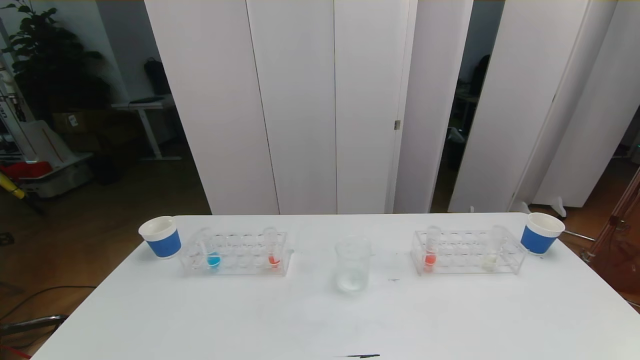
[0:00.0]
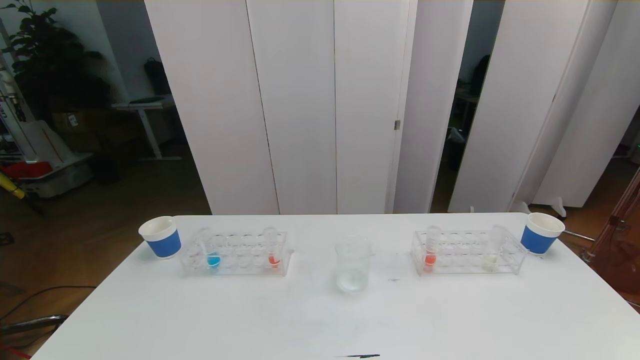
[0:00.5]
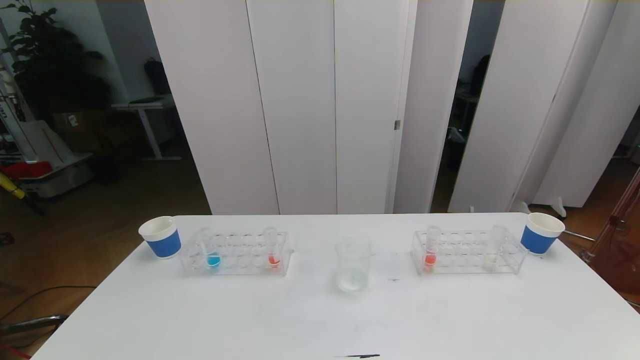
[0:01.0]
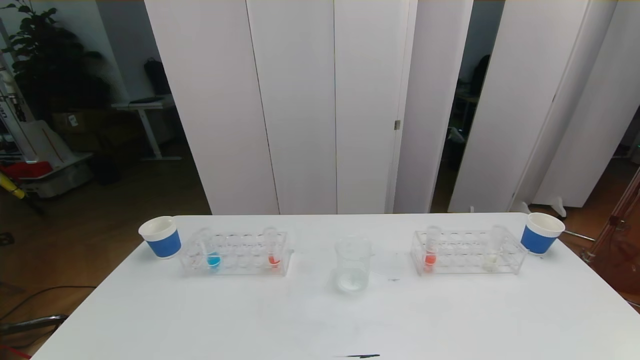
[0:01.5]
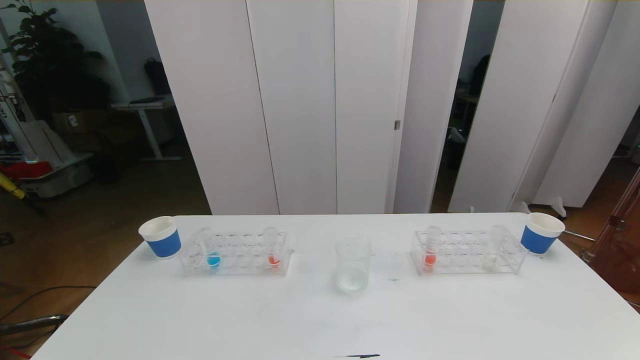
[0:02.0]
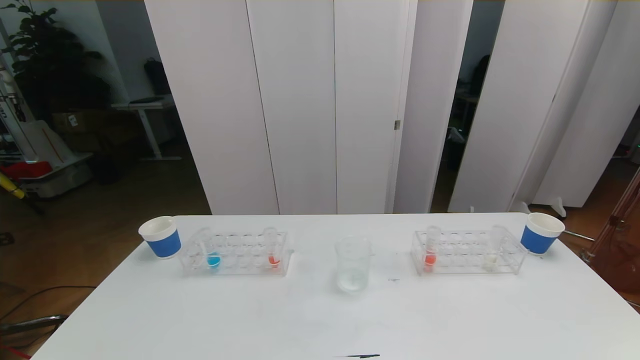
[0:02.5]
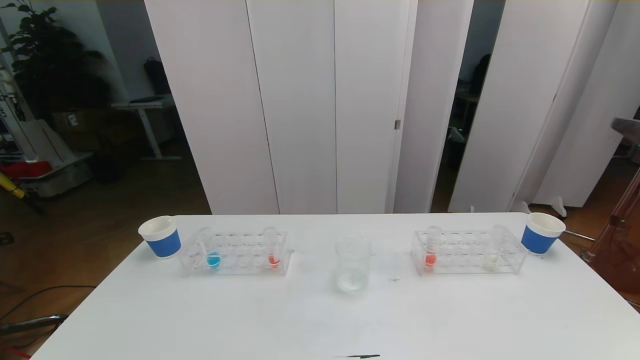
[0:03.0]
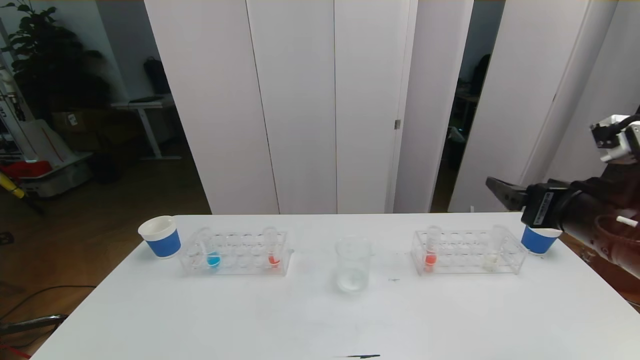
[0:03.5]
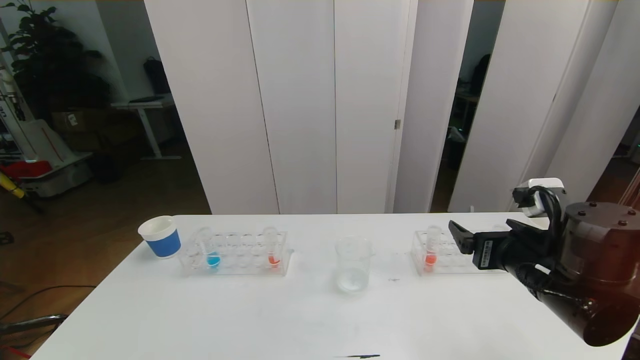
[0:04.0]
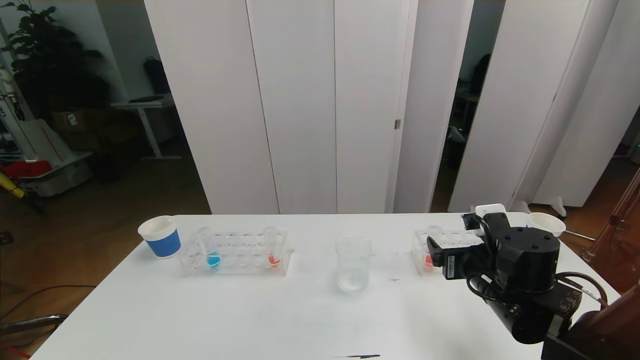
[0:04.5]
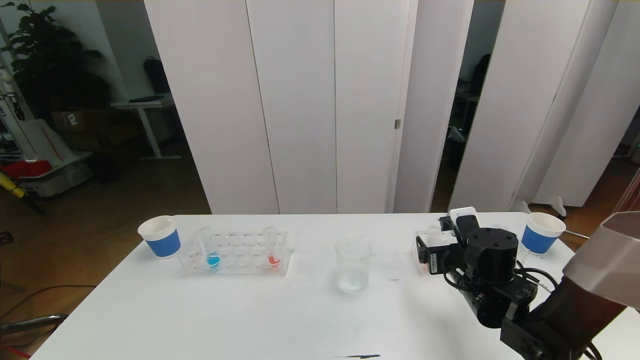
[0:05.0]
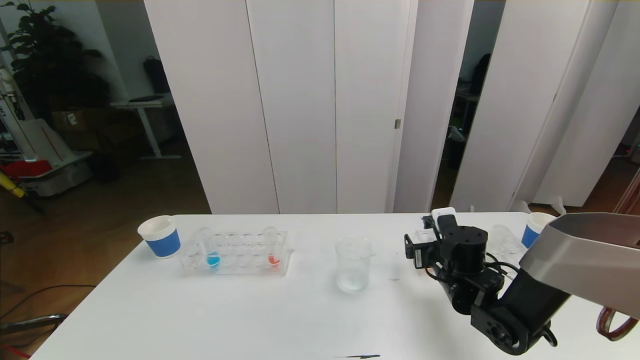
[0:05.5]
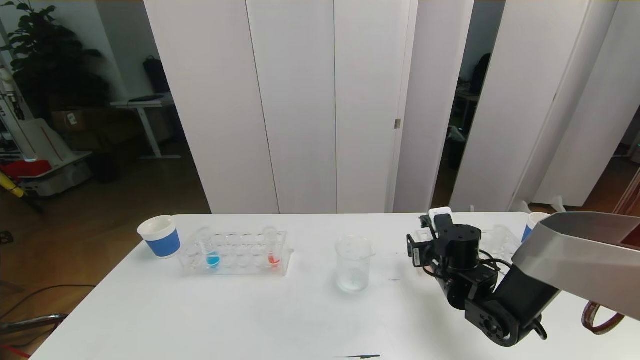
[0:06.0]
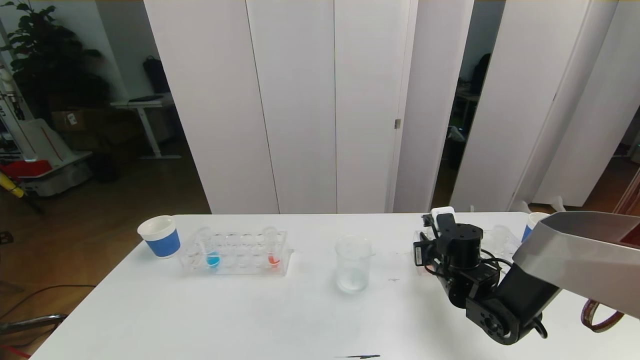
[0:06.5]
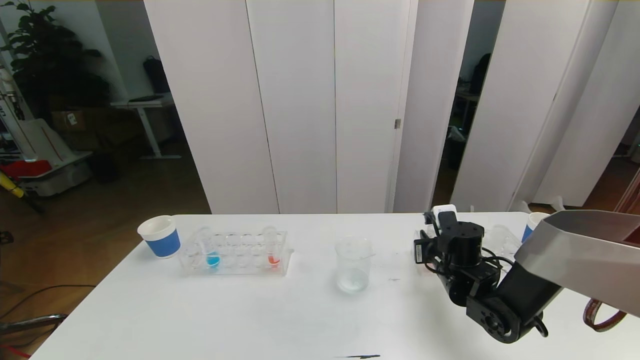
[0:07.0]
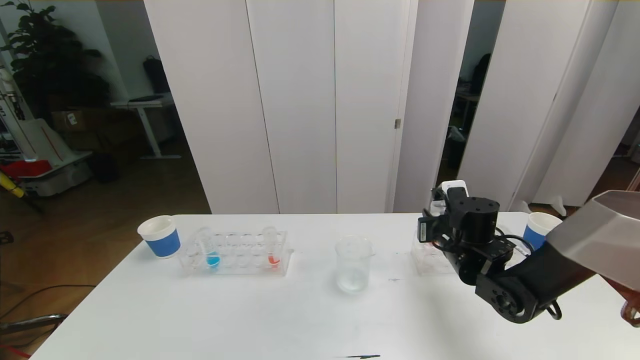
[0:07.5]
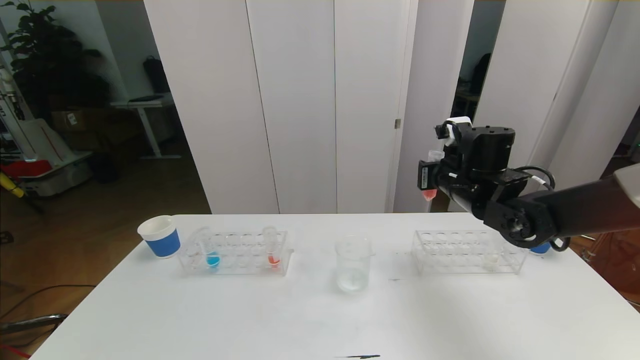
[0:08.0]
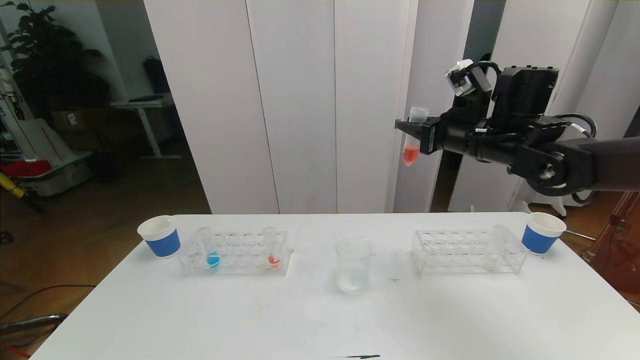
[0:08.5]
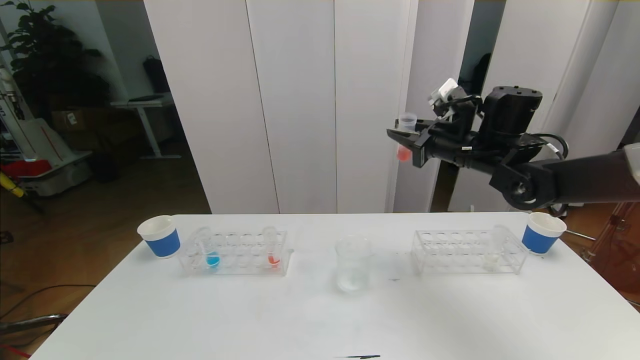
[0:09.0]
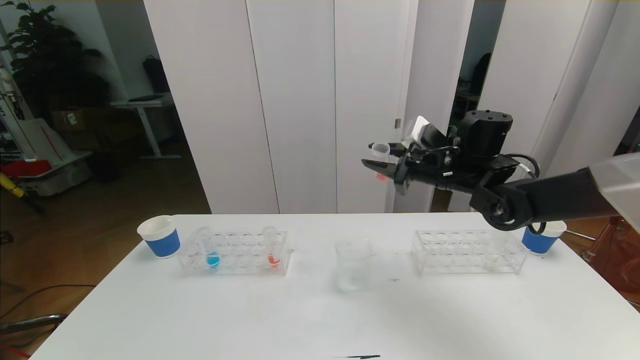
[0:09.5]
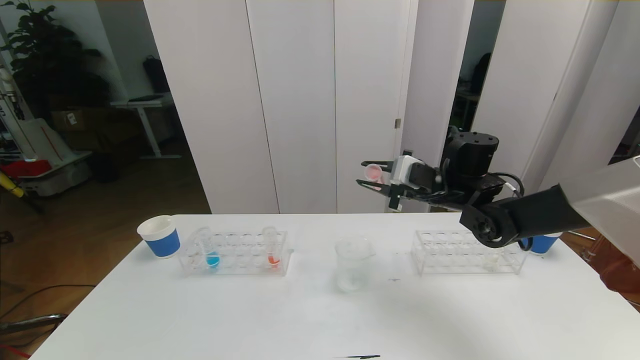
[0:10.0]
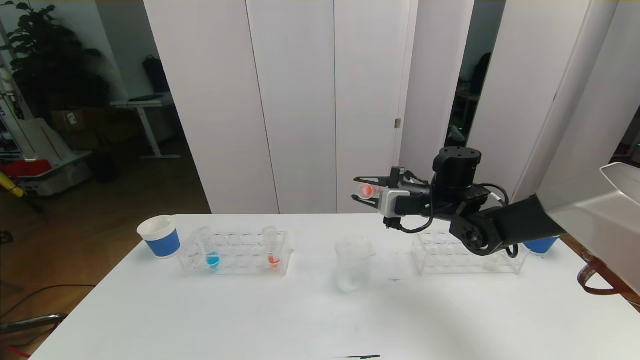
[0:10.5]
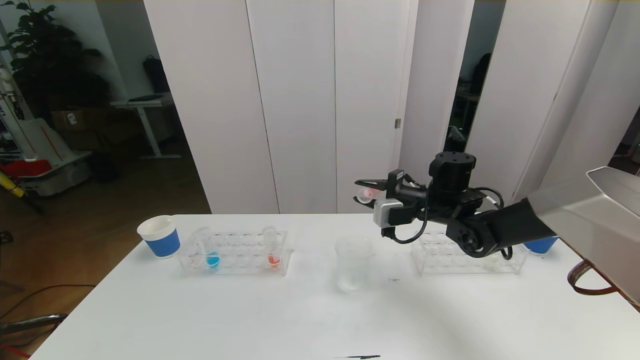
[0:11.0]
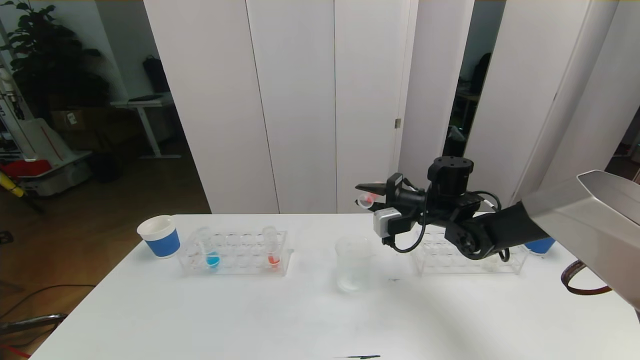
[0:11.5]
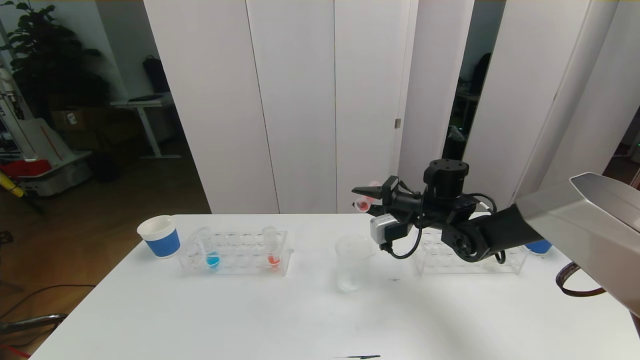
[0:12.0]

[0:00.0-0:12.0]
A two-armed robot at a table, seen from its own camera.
Task of the whole recording: pick up the test tube with red pigment the test tube with blue pigment and the test tube with white pigment by grippers and pour them into the beaker.
0:02.0 to 0:04.0: The right gripper goes about 30 cm forward and to the left.
0:04.0 to 0:06.0: The right gripper goes some 15 cm downward and forward, and closes up.
0:06.0 to 0:08.0: The right gripper is displaced upward by about 15 cm, and closes.
0:08.0 to 0:10.0: The right gripper goes upward and returns, some 5 cm each way.
0:10.0 to 0:12.0: The right gripper shifts about 5 cm downward.

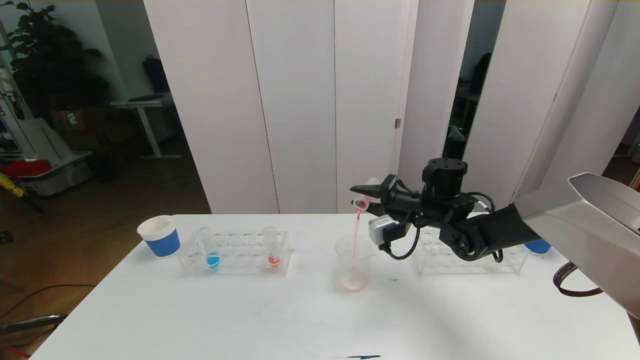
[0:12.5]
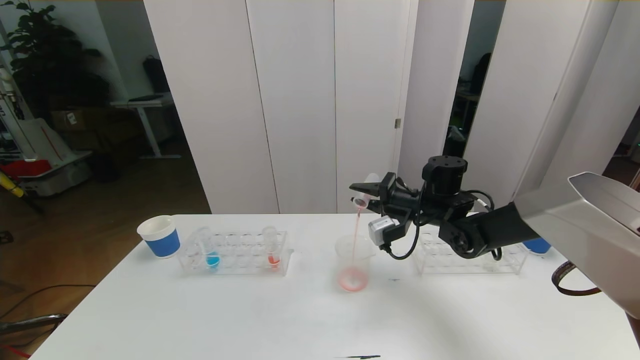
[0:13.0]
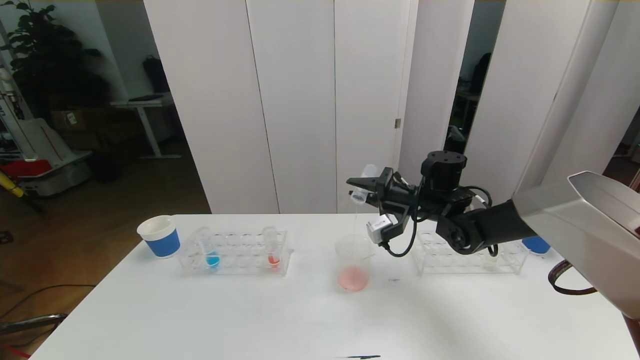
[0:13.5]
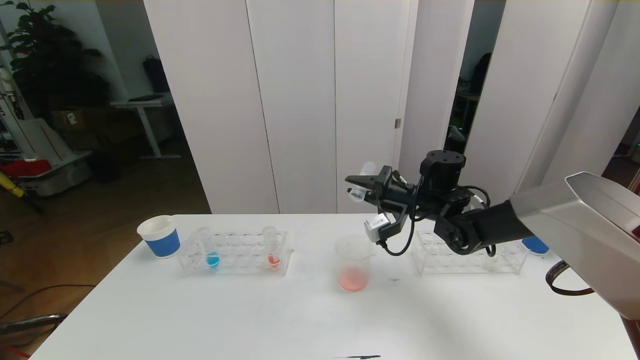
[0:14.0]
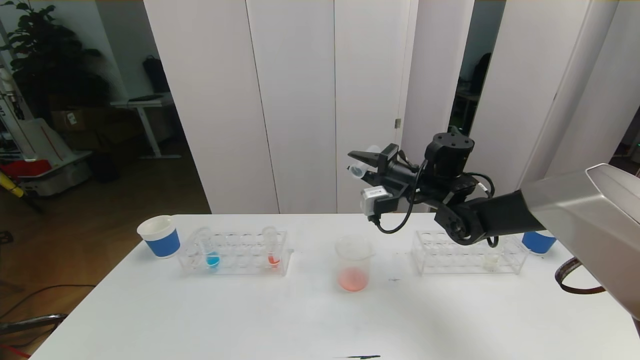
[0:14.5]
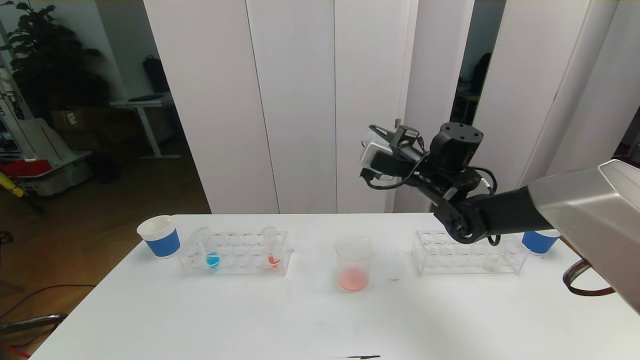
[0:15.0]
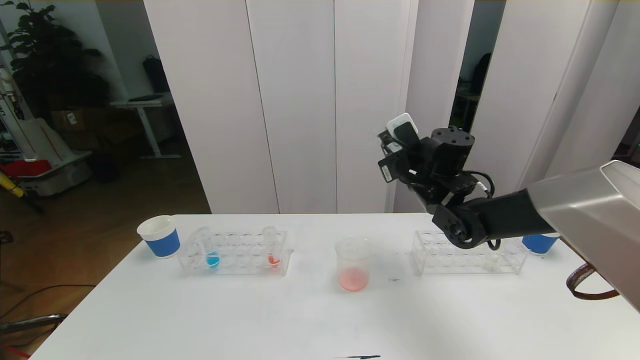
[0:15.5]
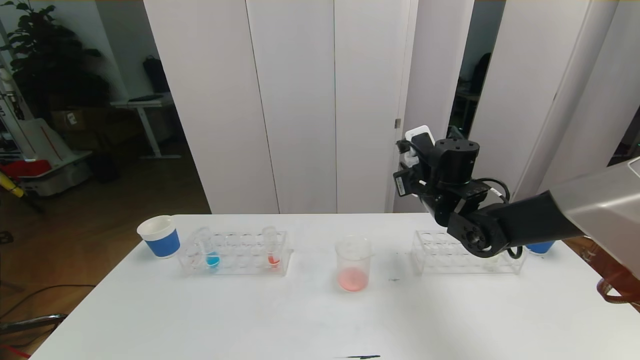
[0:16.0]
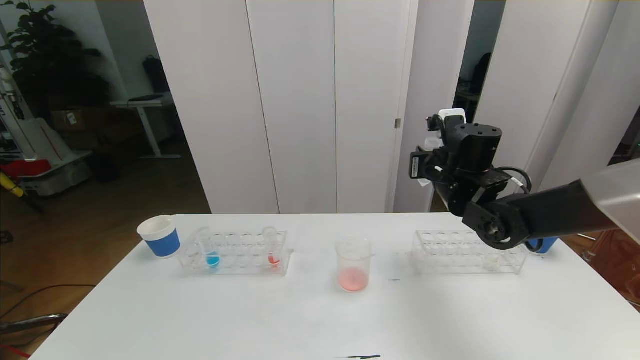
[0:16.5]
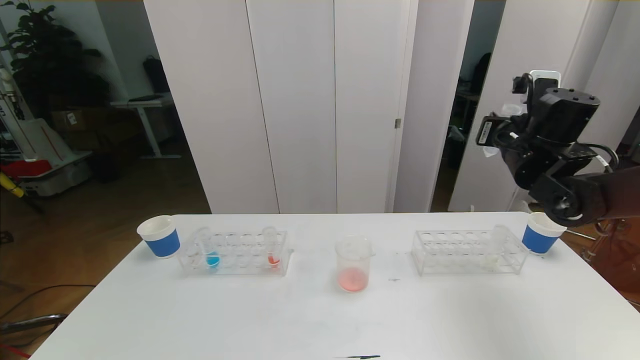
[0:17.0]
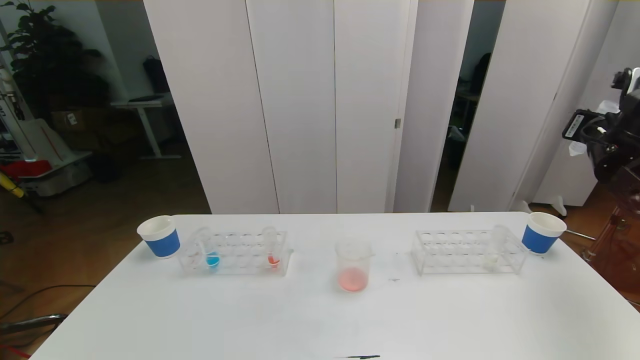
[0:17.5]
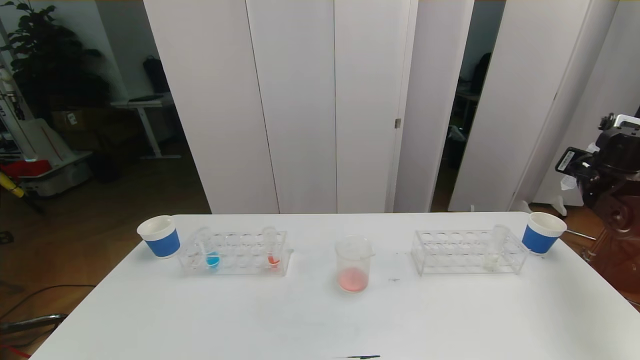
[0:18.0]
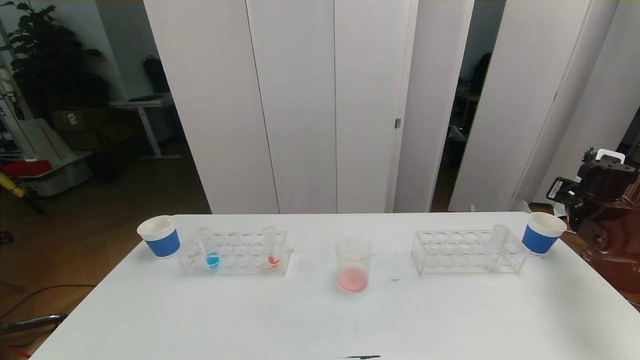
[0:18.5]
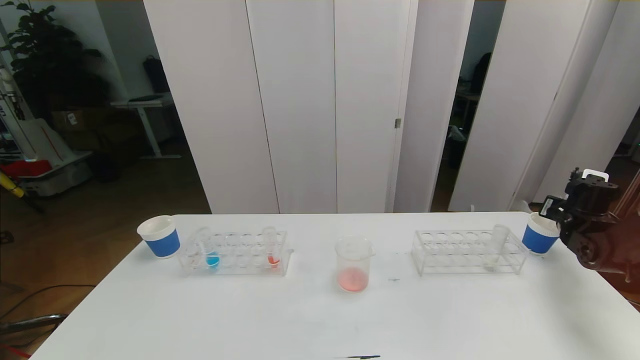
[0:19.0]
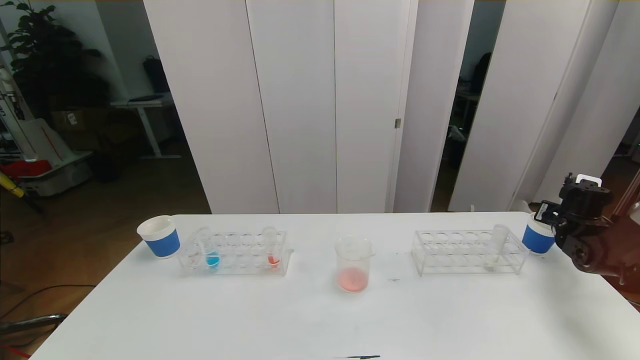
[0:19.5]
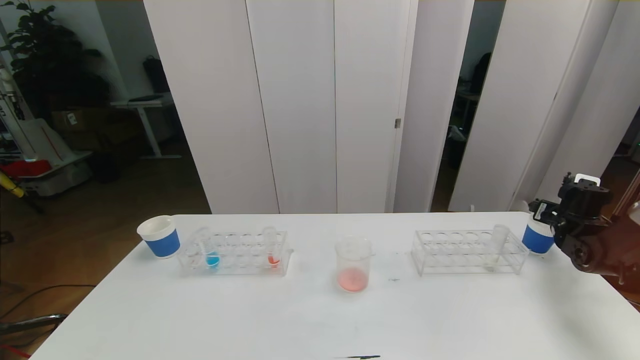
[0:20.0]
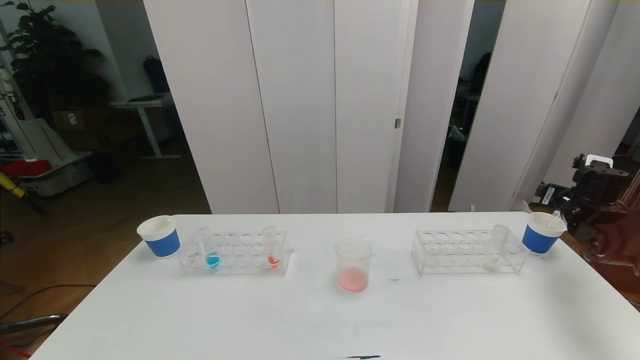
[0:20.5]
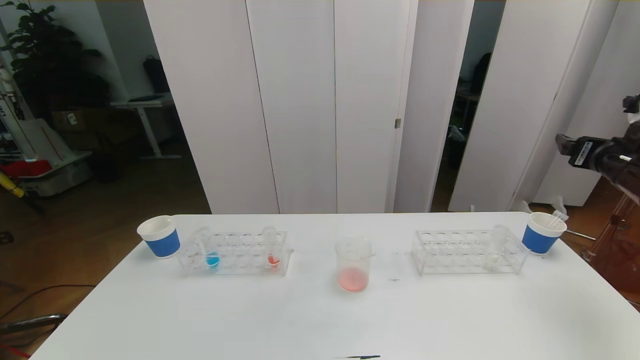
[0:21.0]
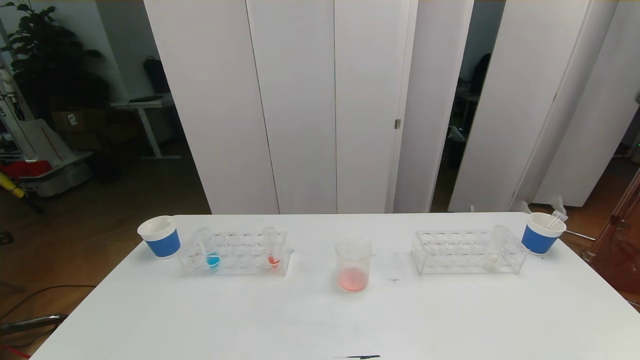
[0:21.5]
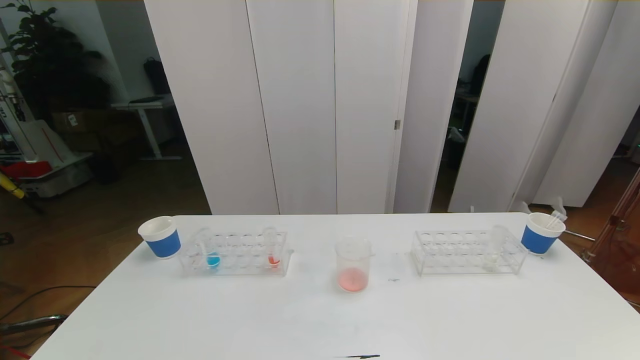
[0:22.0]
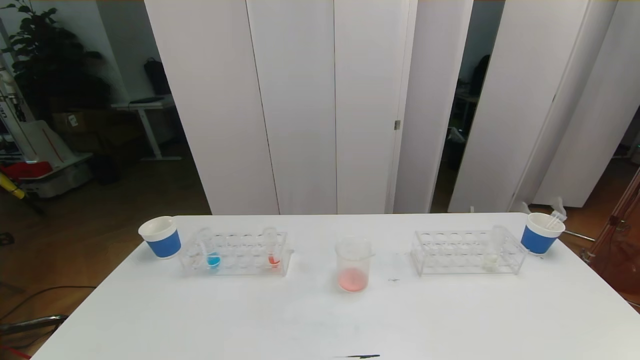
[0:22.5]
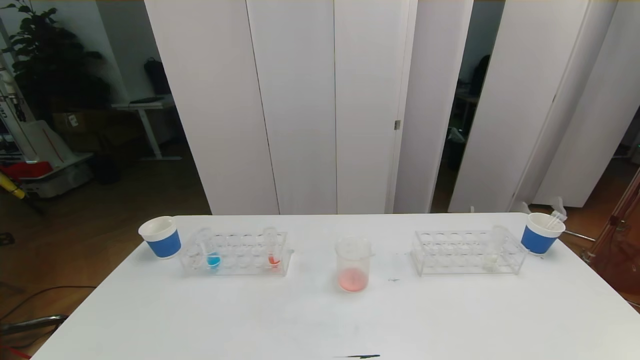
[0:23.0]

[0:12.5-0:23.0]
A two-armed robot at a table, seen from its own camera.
Task of the whole recording: pick up the test tube with red pigment the test tube with blue pigment and the test tube with white pigment by grippers and pour them into the beaker.
0:12.5 to 0:14.5: The right gripper shifts approximately 5 cm upward.
0:14.5 to 0:16.5: The right gripper shifts by about 5 cm.
0:16.5 to 0:19.0: The right gripper goes roughly 30 cm to the right and downward.
0:19.0 to 0:21.0: The right gripper goes some 20 cm upward and backward, and opens up.
0:21.0 to 0:23.0: The right gripper travels backward by some 35 cm.
